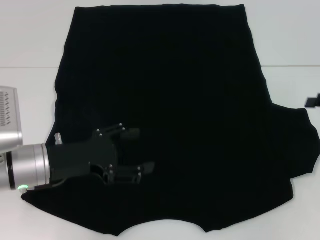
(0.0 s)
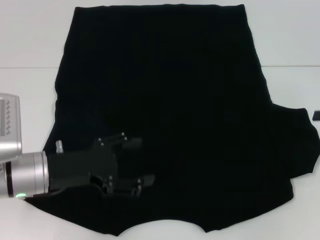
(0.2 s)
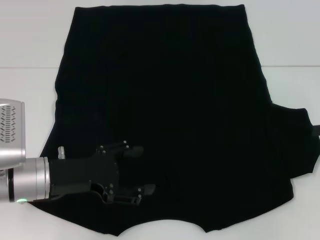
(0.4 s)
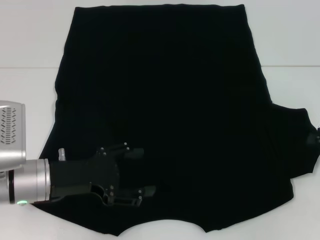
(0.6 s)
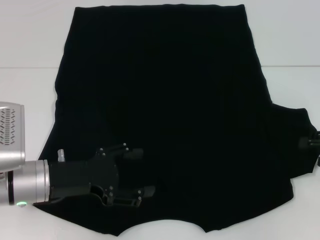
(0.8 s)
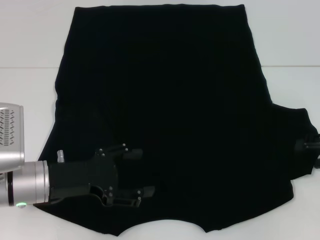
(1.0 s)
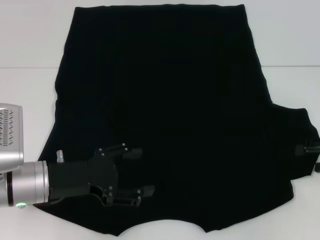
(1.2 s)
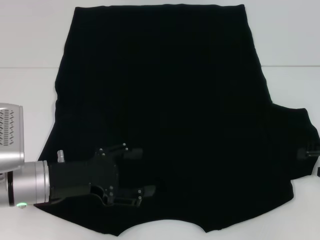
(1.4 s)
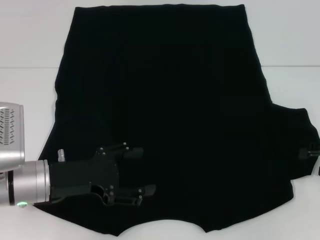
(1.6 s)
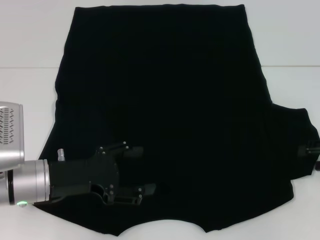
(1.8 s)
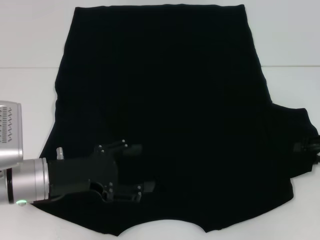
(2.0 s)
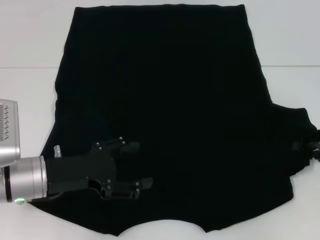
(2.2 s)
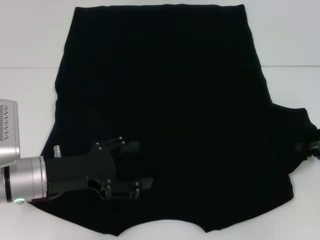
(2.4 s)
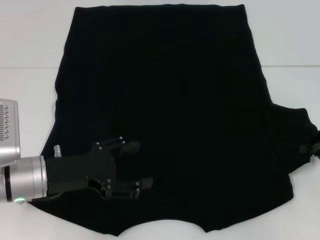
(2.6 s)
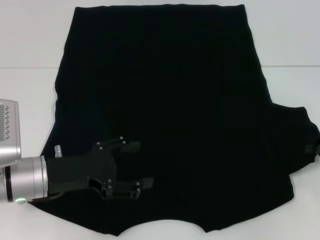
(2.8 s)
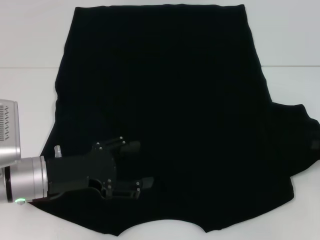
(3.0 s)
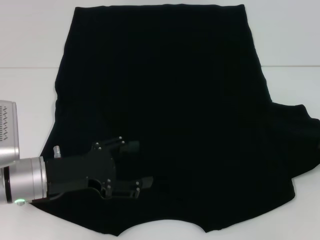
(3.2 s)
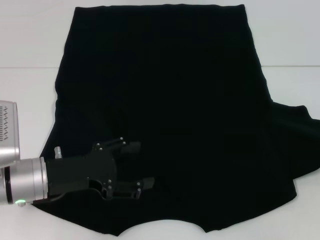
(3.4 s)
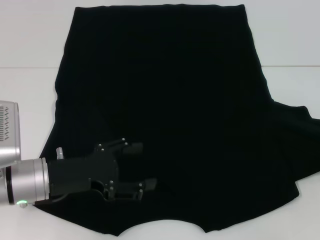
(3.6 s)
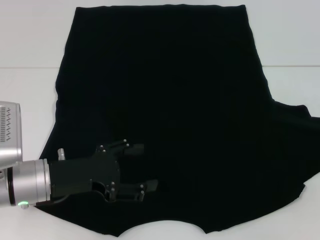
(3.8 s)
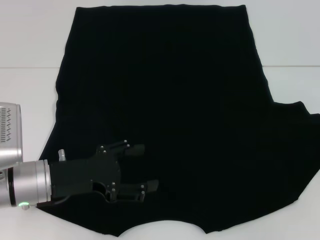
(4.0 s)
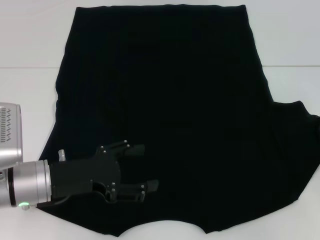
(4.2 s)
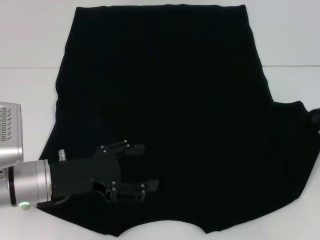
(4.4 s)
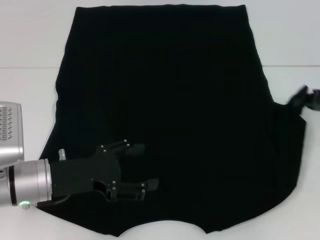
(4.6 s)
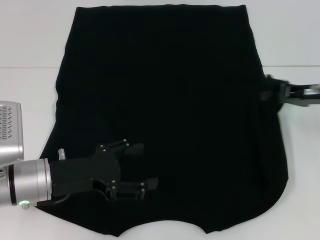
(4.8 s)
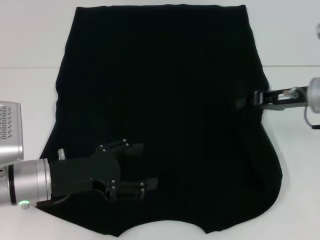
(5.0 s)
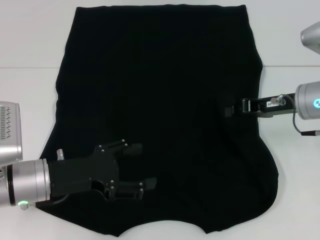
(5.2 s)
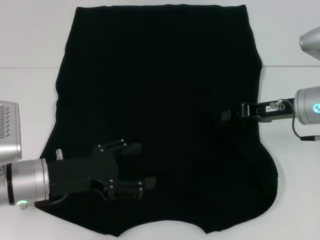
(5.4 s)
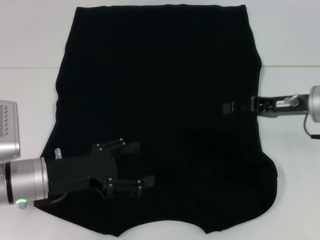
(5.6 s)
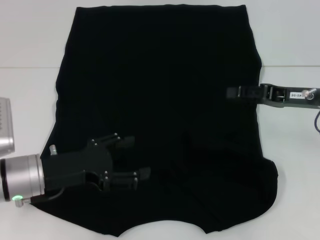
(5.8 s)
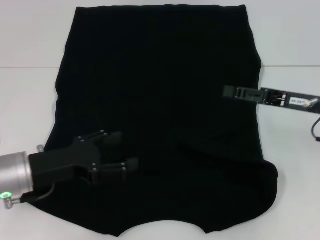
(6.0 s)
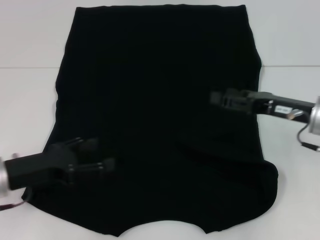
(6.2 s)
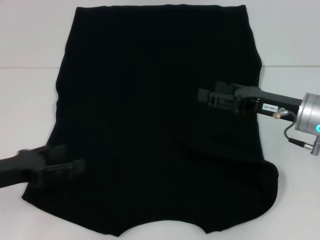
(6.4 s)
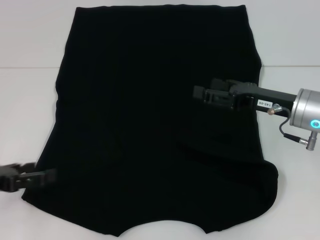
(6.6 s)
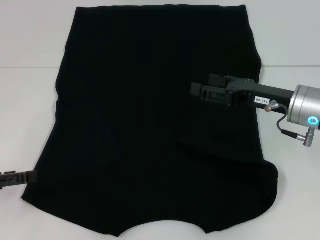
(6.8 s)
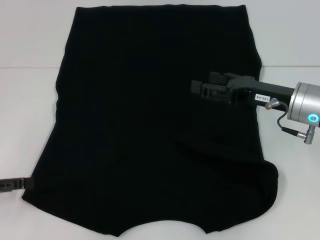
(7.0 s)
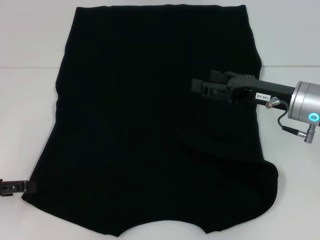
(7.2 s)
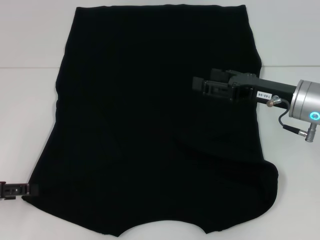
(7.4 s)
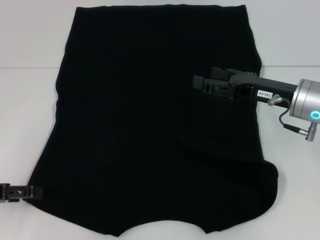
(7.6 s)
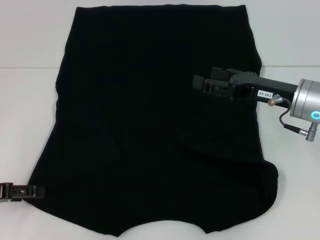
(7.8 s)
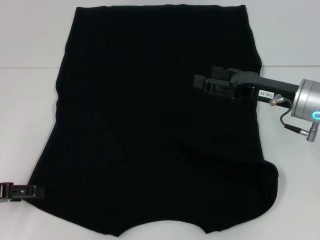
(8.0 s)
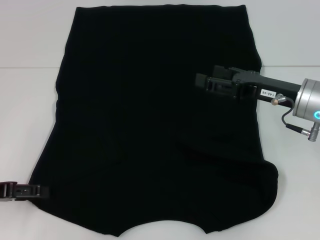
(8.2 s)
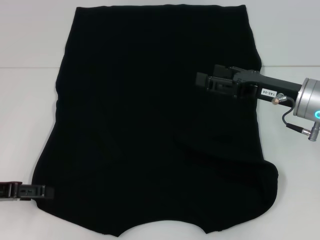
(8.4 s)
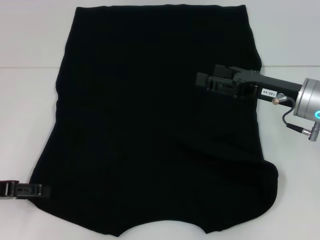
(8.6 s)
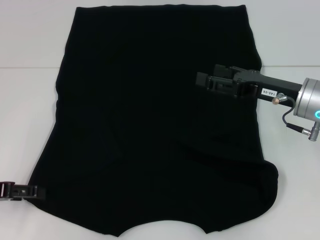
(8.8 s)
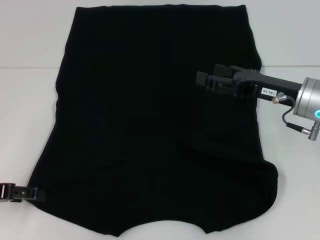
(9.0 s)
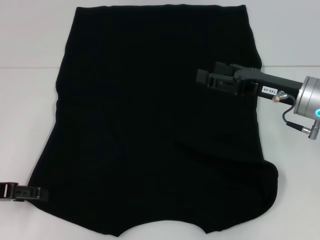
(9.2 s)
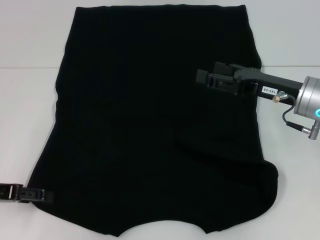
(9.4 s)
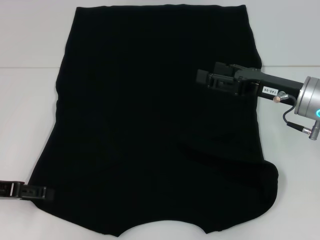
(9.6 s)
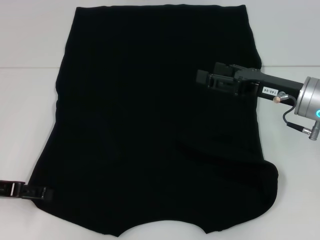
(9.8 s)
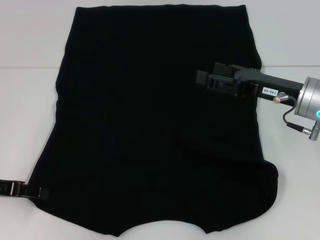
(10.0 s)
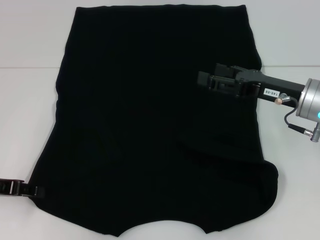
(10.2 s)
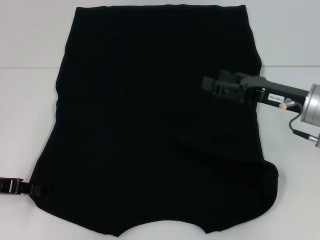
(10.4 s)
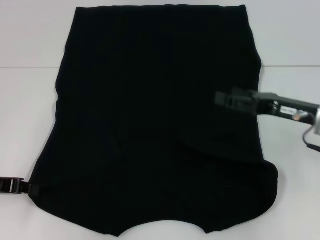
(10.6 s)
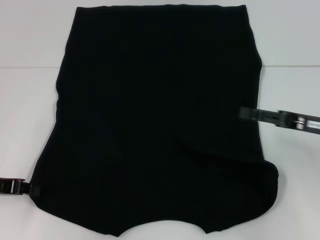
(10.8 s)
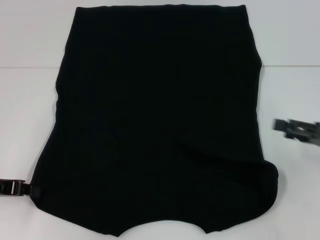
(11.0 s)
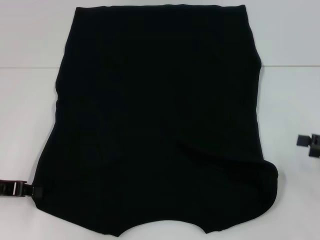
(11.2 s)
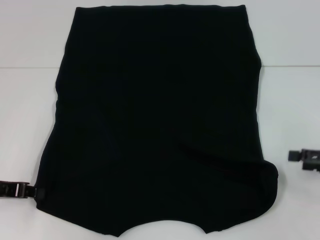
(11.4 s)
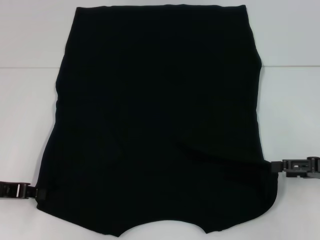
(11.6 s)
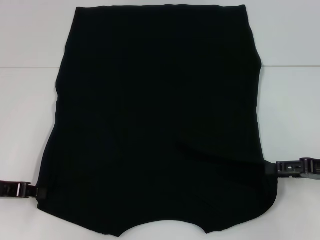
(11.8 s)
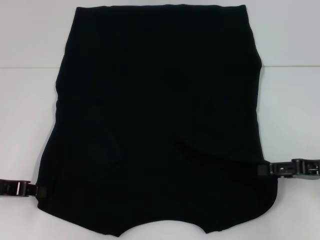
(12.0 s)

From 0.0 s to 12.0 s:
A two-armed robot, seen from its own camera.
Step, from 0.0 s to 5.8 s: Fold the bottom right sleeve with your right hand.
From 0.0 s to 1.6 s: The grippers stay close to where they were, moving slightly.
From 1.6 s to 3.0 s: The right gripper closes its fingers.
From 3.0 s to 4.4 s: The grippers move only a little.
From 4.4 s to 6.0 s: The right gripper moves to the left, approximately 10 cm, and opens.
From 6.0 s to 7.6 s: The right gripper opens up, while the left gripper goes about 10 cm to the left.
From 7.6 s to 9.0 s: The grippers make only small movements.
From 9.0 s to 10.4 s: The left gripper closes.
From 10.4 s to 12.0 s: The right gripper goes some 10 cm to the right and backward; the left gripper closes up.

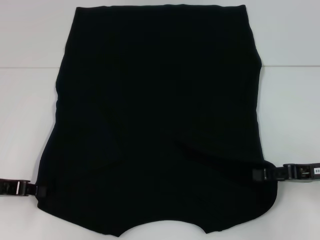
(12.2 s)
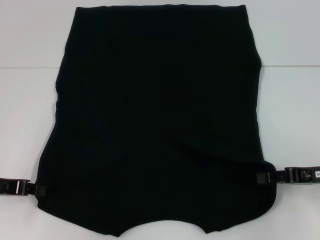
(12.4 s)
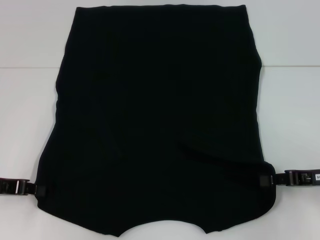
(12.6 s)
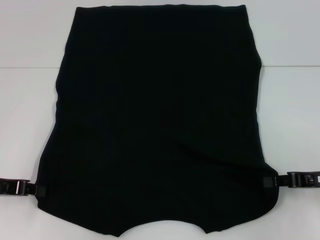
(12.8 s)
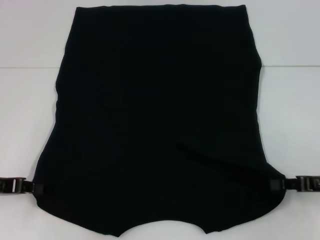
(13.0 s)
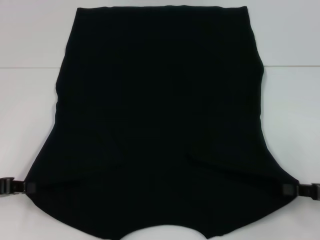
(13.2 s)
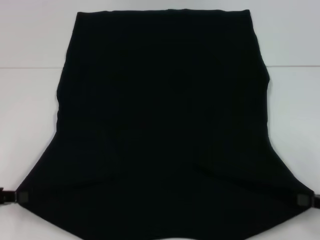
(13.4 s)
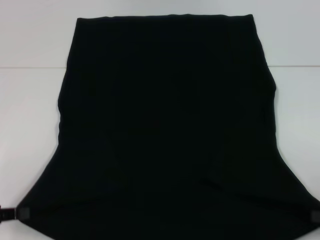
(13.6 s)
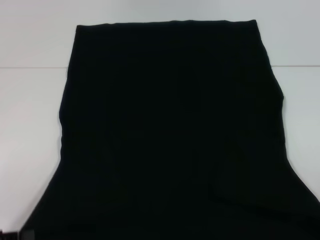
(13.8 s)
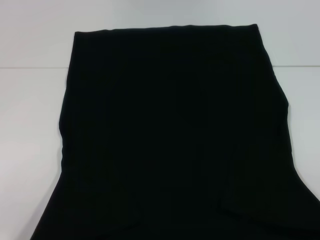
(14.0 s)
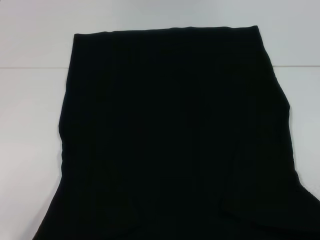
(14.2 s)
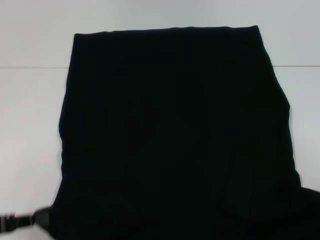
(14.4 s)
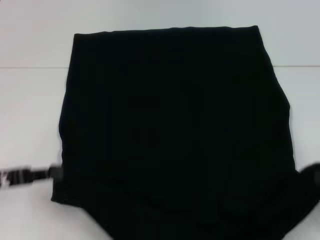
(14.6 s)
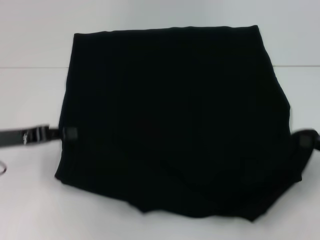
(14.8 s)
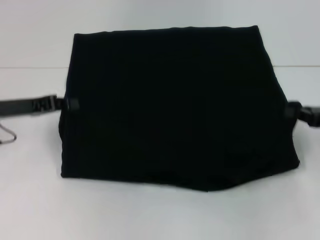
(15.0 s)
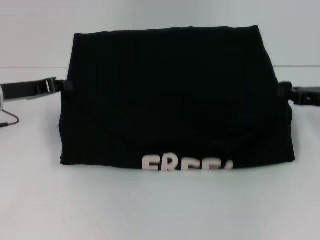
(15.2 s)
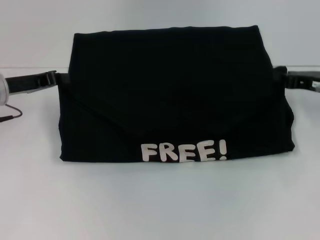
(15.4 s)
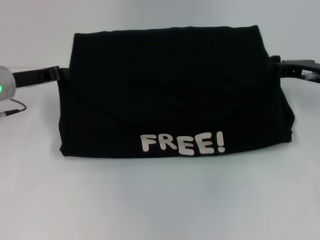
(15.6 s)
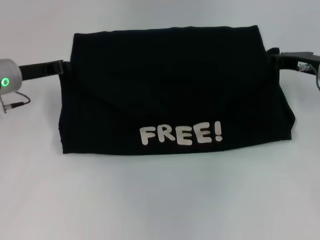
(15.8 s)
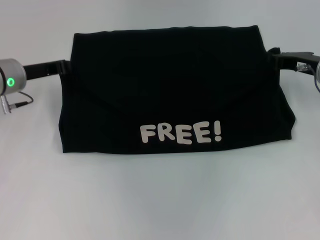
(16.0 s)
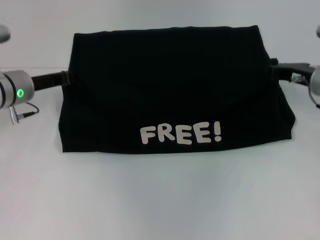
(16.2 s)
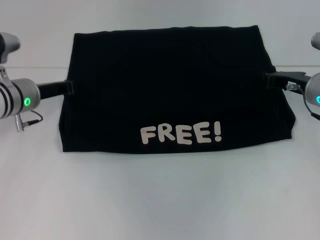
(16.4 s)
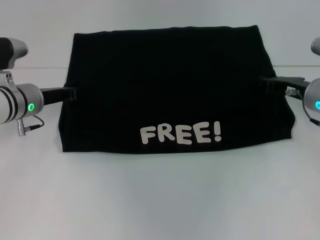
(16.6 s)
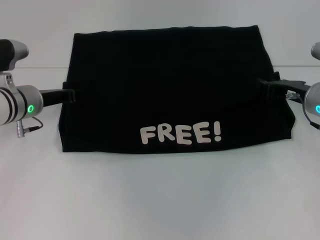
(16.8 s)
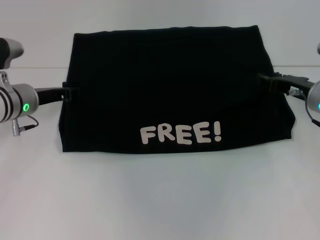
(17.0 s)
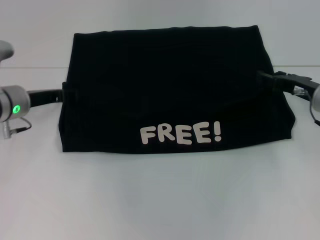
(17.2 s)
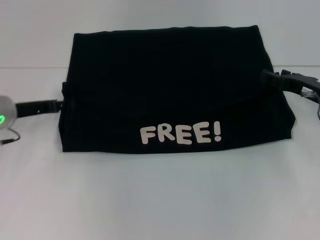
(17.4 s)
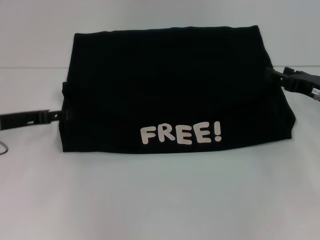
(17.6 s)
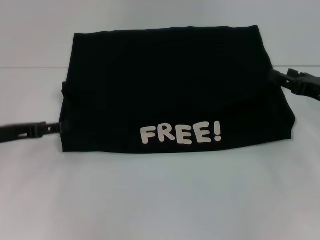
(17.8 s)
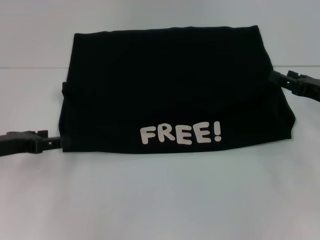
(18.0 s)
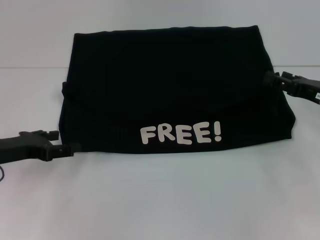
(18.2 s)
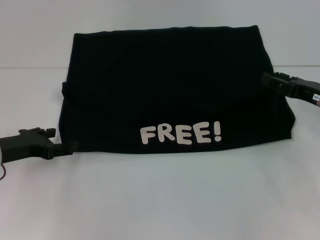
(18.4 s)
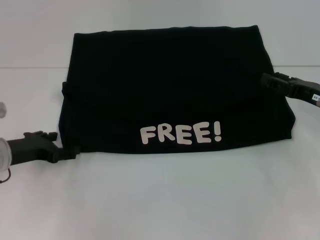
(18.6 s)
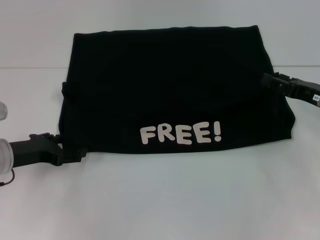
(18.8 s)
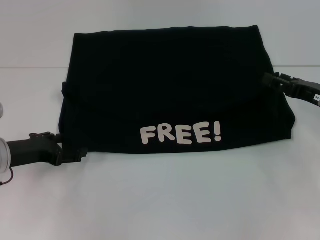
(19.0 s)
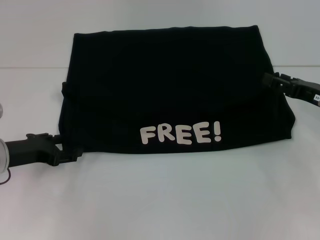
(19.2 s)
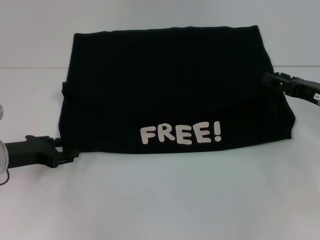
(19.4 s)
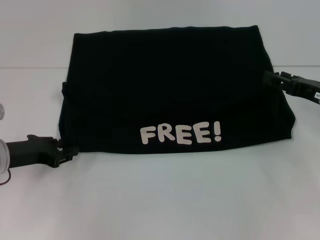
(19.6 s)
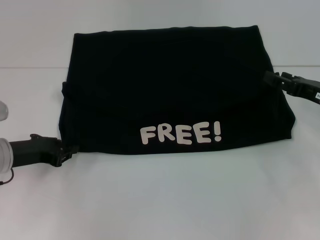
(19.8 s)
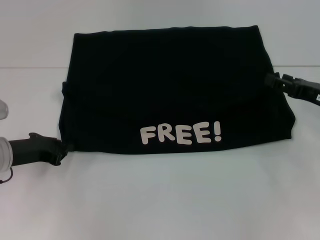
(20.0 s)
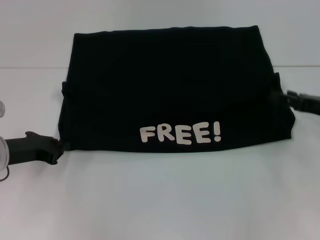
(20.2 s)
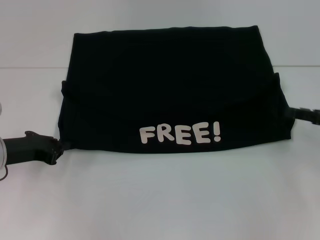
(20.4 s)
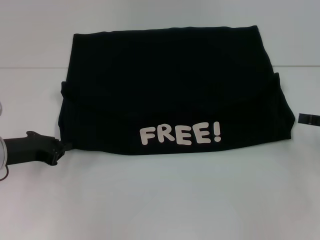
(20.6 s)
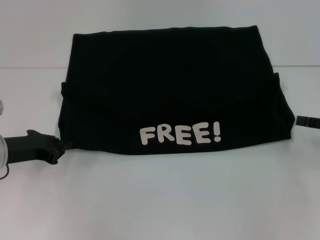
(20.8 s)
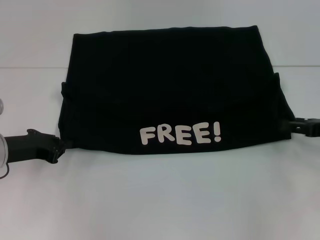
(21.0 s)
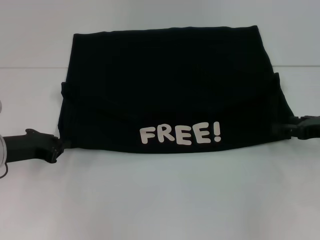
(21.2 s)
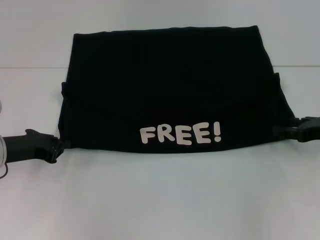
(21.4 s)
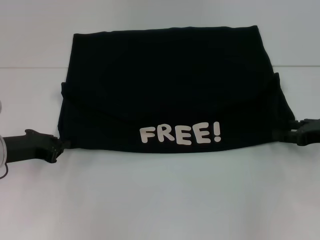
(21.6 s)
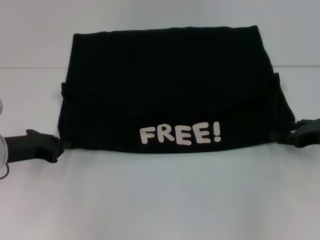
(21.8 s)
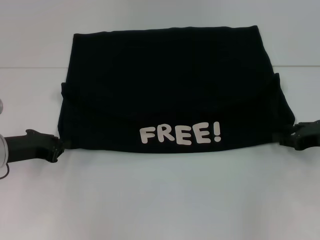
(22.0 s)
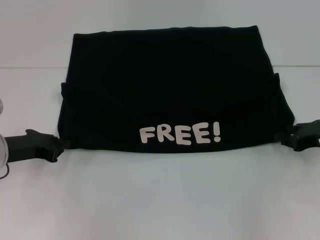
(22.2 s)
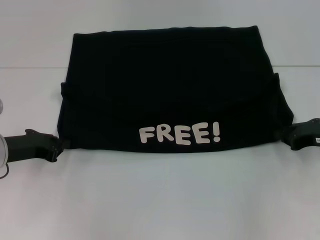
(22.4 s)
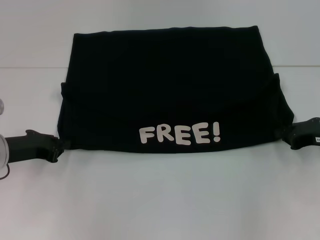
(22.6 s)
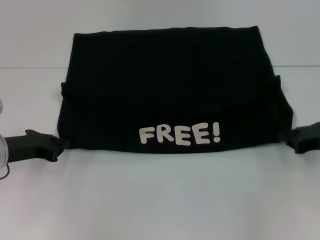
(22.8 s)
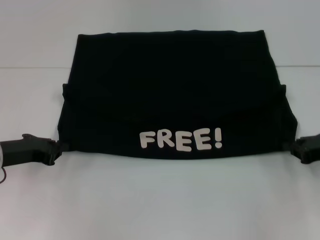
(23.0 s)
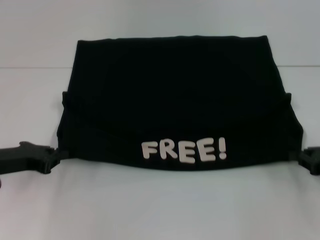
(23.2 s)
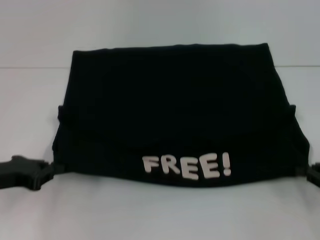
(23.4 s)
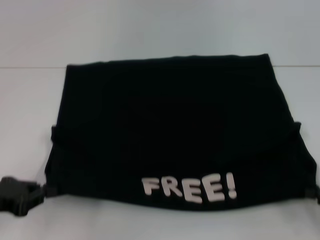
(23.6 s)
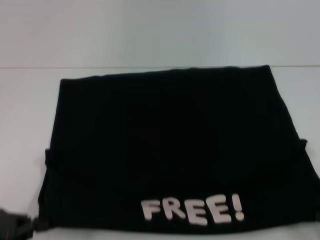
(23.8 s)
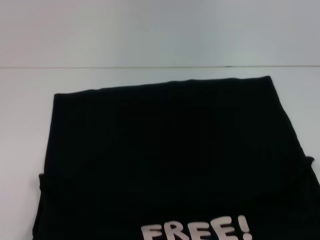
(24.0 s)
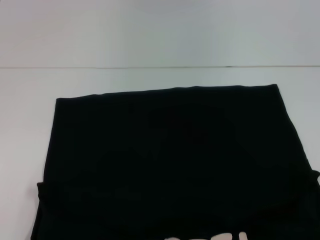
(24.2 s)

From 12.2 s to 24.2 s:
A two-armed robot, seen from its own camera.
Step, from 13.8 s to 17.2 s: Fold the clothes with your left hand.
Step, from 13.8 s to 17.2 s: Fold the clothes with your right hand.
Step, from 17.4 s to 23.8 s: Pull the clothes with your left hand.
Step, from 17.4 s to 23.8 s: Pull the clothes with your right hand.
From 12.2 s to 13.8 s: The right gripper moves backward and to the right, roughly 15 cm, and closes up; the left gripper heads backward, covering some 10 cm.
From 13.8 s to 15.2 s: Both grippers travel together forward, some 20 cm.
From 15.2 s to 16.6 s: The right gripper is displaced to the left by some 5 cm. The left gripper moves to the right, roughly 5 cm.
From 16.6 s to 18.2 s: The left gripper moves backward and to the left, some 10 cm, and opens up, while the right gripper moves backward, about 5 cm, and opens.
From 18.2 s to 19.8 s: The left gripper closes.
From 19.8 s to 21.2 s: The left gripper closes its fingers.
From 21.2 s to 22.6 s: The right gripper closes.
From 22.6 s to 24.2 s: The grippers both shift backward by about 20 cm.
